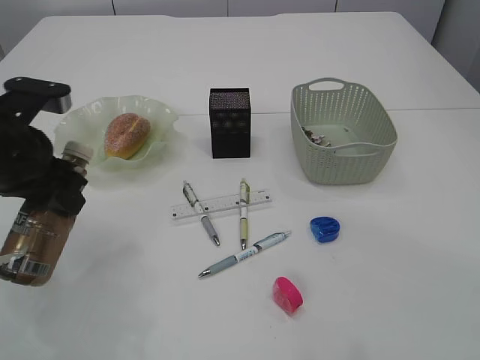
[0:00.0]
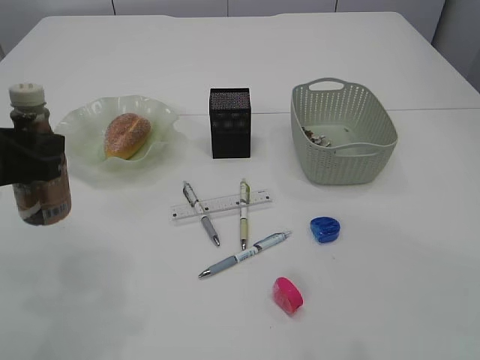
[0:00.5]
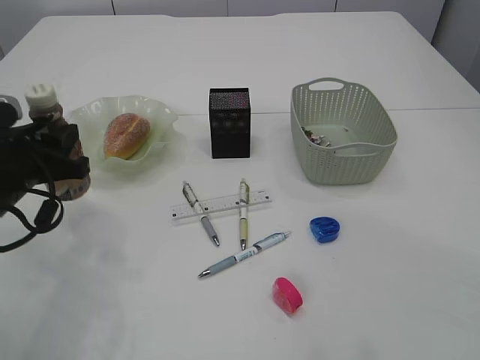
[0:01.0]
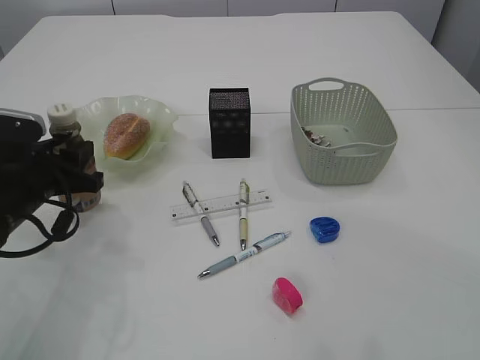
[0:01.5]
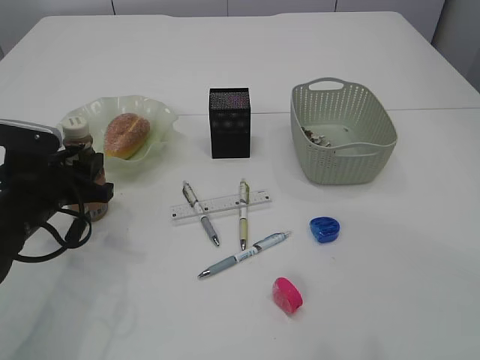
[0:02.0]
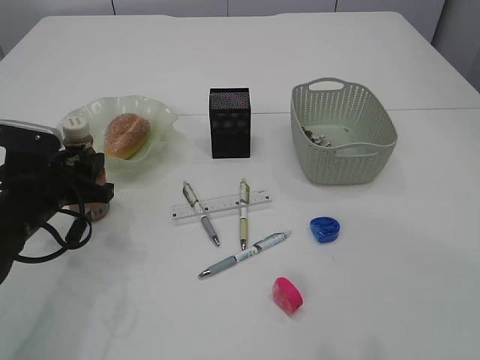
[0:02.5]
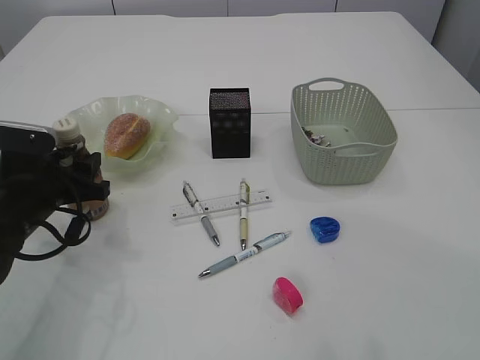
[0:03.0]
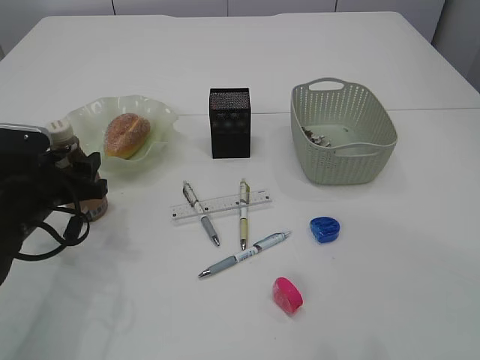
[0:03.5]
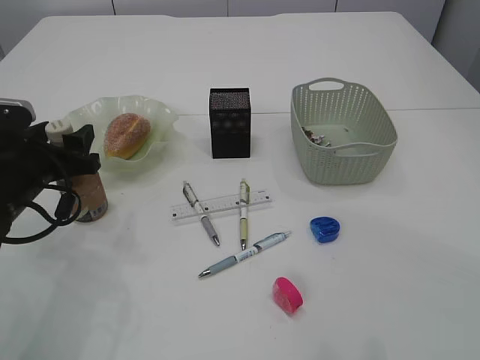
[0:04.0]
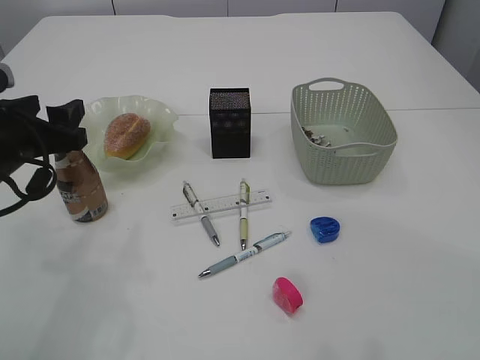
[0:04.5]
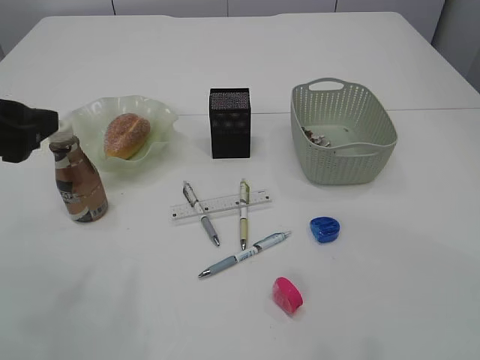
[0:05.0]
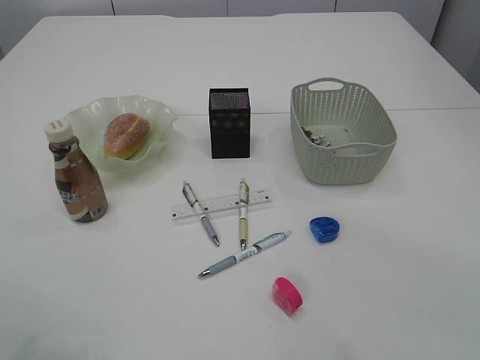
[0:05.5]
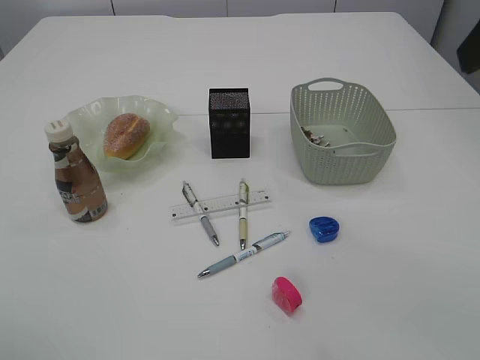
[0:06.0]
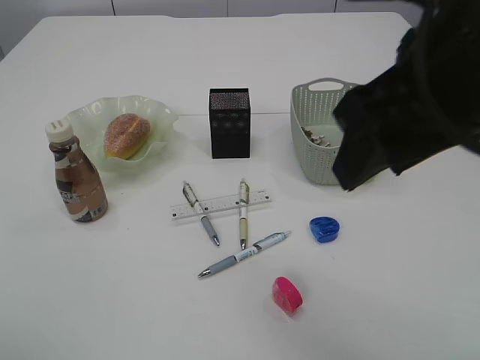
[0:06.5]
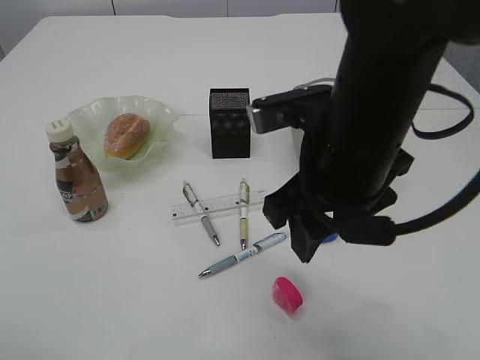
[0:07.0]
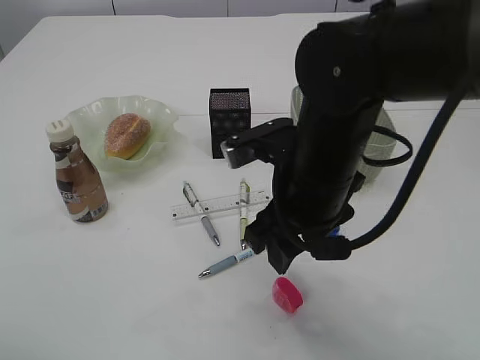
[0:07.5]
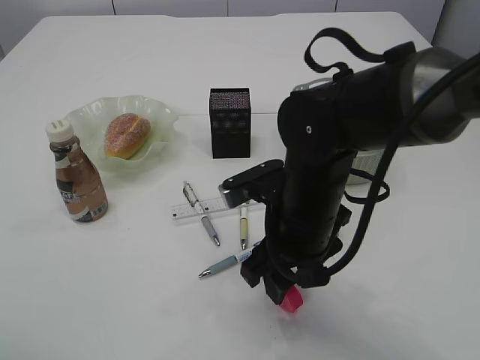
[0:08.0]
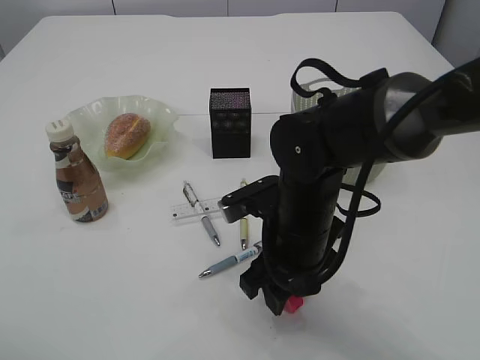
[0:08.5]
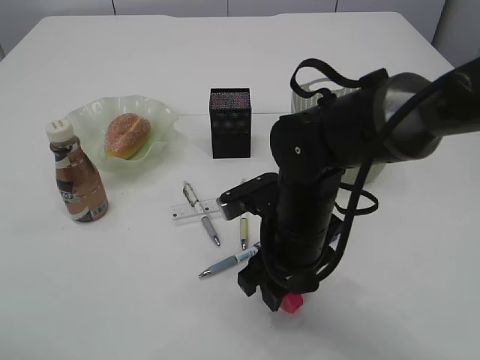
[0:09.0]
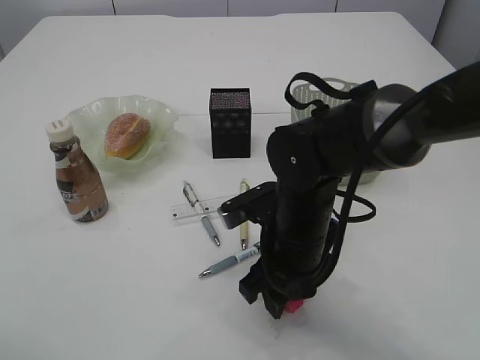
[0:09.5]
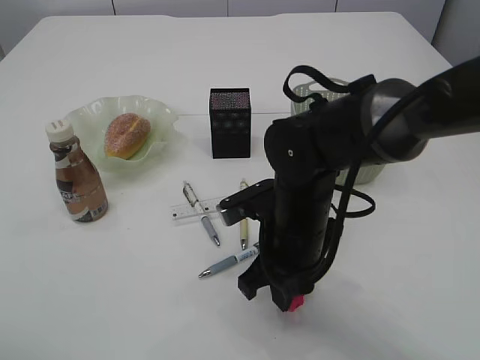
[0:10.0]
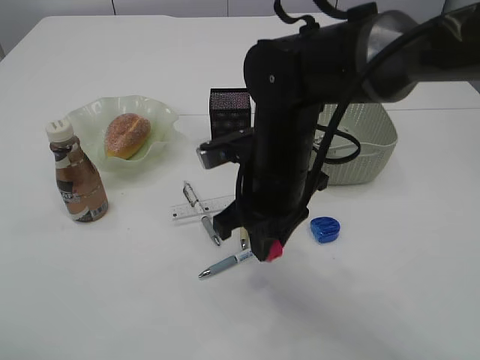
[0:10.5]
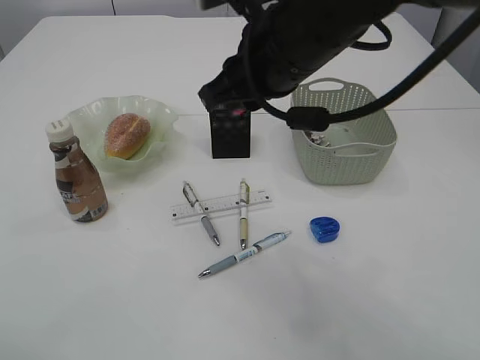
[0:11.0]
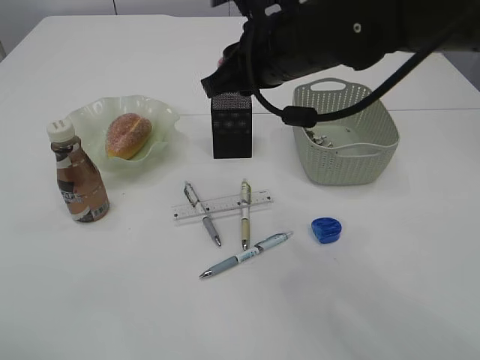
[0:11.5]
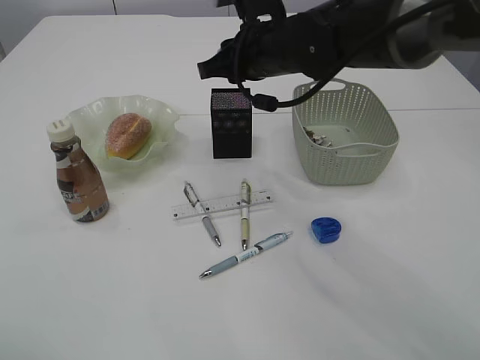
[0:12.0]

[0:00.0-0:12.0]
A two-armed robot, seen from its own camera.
Step, 0:00.0 to 0:05.0: Place the bottle.
Step, 0:05.5 to 0:10.5: Pick up the red pencil sharpener.
0:00.0 to 0:02.0: The left gripper is displaced downward by some 10 cm.
0:02.0 to 0:04.0: The left gripper opens.
0:04.0 to 0:06.0: The left gripper shifts approximately 25 cm upward and backward.
0:06.0 to 0:08.0: The right gripper moves downward and to the left, roughly 30 cm.
0:08.0 to 0:10.0: The right gripper closes its fingers.
0:10.0 to 0:12.0: The right gripper moves forward and upward, about 20 cm.

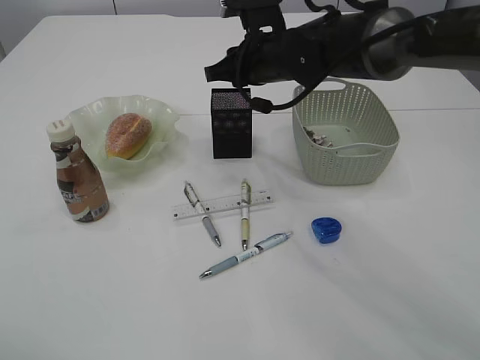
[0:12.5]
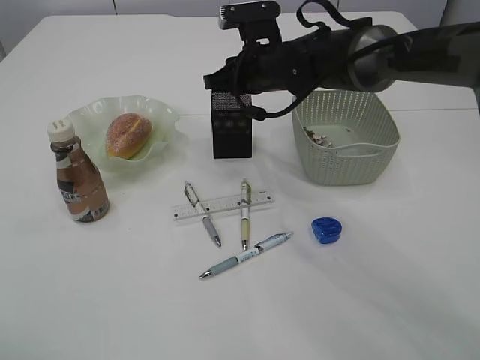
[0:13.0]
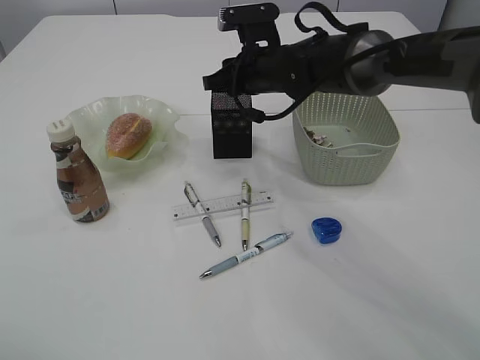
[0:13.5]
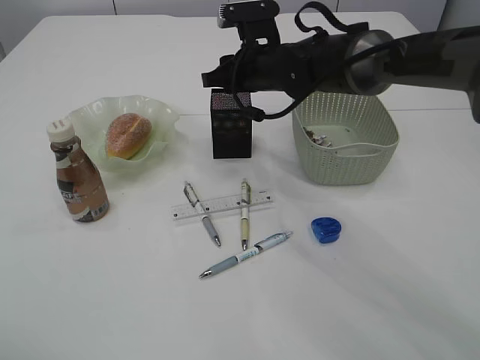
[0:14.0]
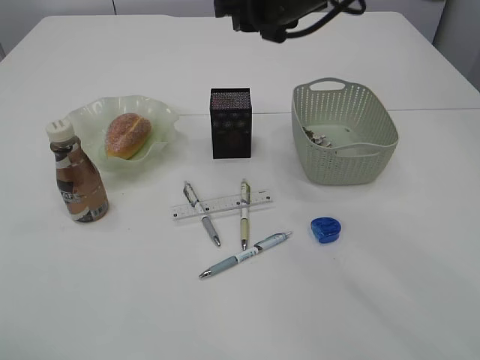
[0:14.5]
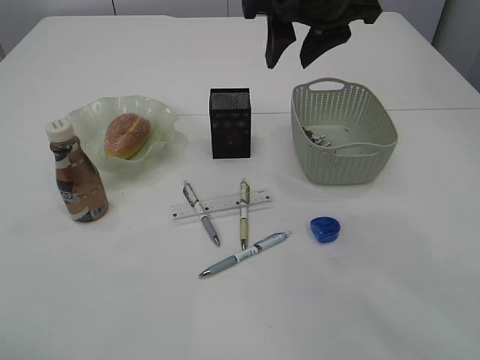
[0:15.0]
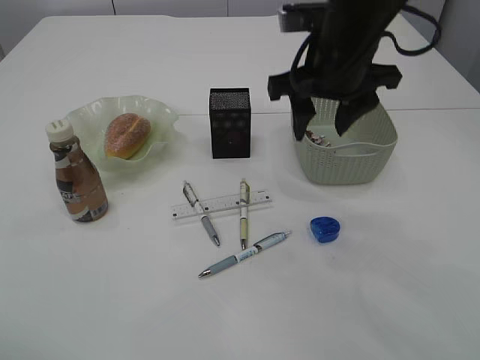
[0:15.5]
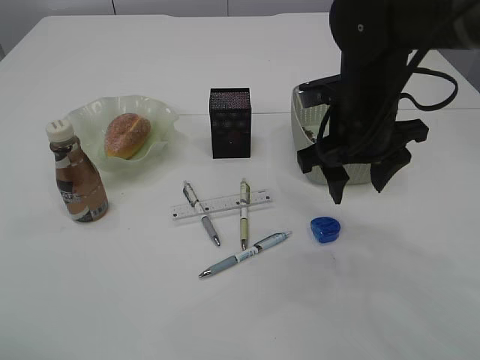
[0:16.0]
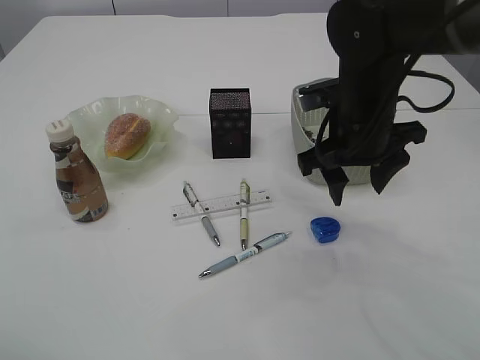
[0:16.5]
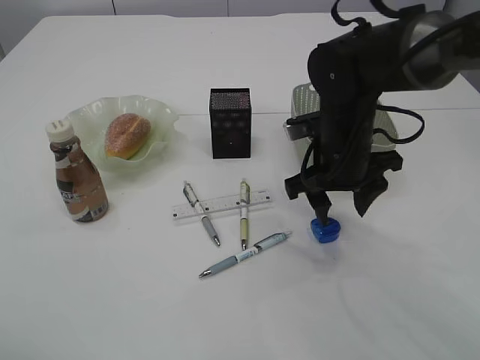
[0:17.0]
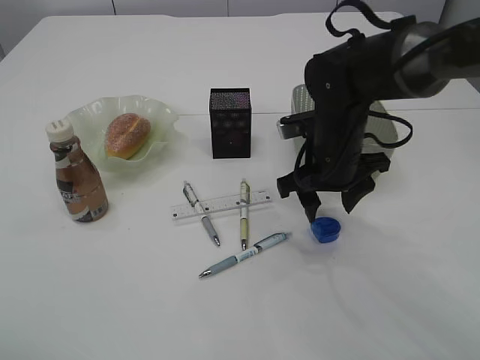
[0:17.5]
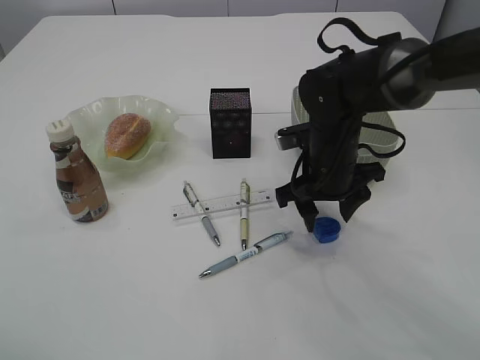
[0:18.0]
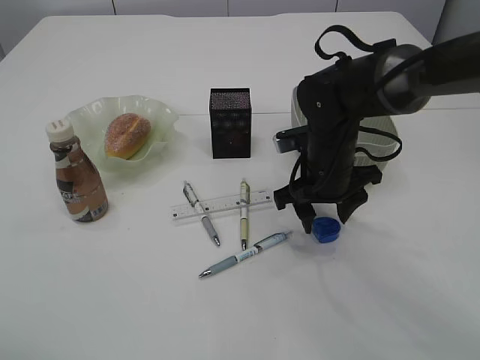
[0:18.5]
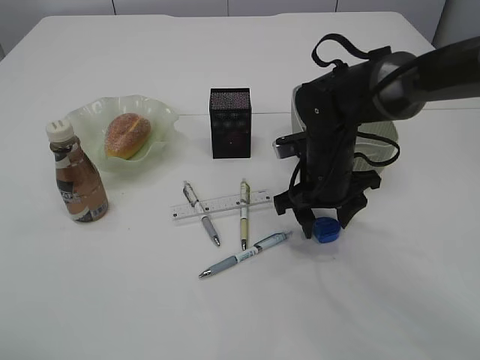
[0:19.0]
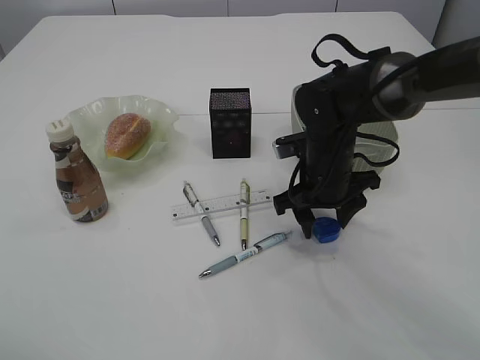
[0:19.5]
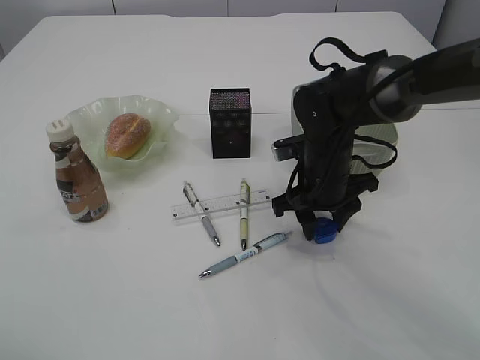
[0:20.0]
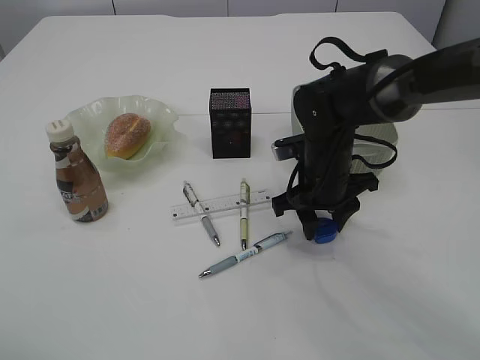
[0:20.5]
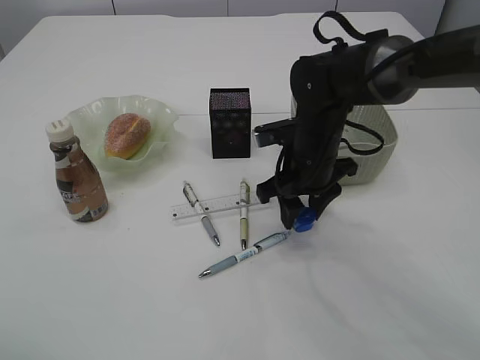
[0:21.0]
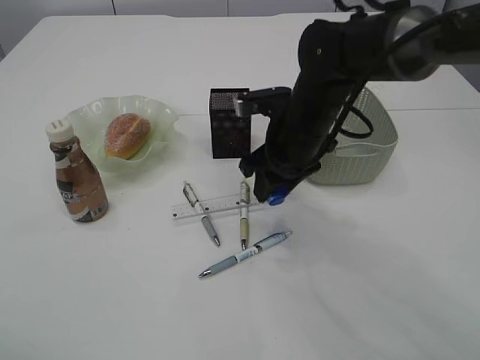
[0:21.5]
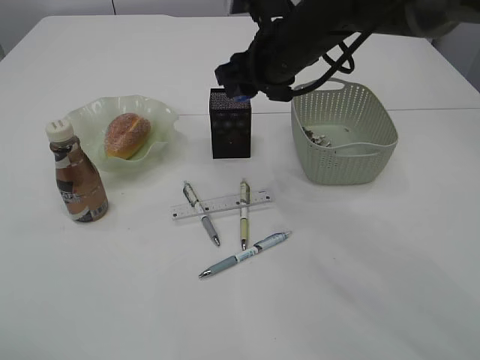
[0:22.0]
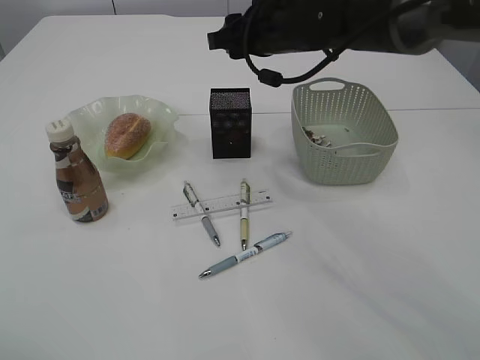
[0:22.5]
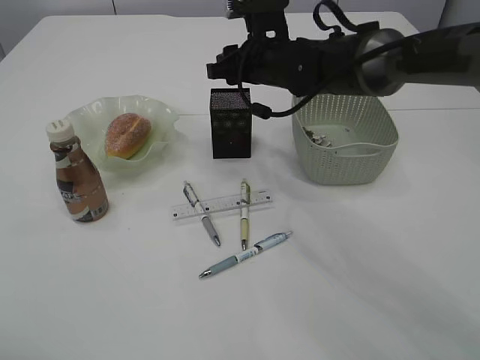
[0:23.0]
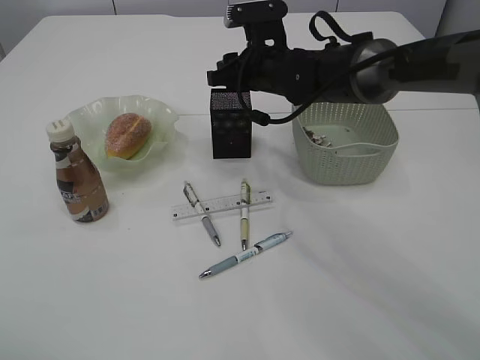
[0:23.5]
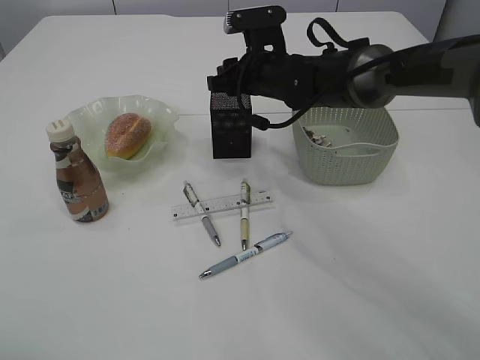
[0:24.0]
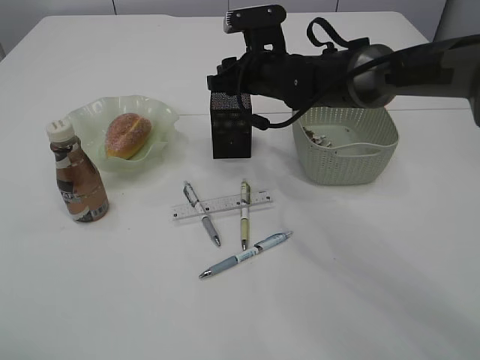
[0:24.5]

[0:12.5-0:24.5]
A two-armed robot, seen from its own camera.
Step, 0:14.5 to 0:21.5: Pick up the blue pencil sharpener.
0:12.5 to 0:14.5: The right gripper travels upward by some 10 cm.
0:14.5 to 0:16.5: The right gripper shifts approximately 15 cm backward, downward and to the right.
0:16.5 to 0:18.5: The right gripper is displaced downward by approximately 10 cm.
0:18.5 to 0:20.5: Neither gripper changes place.
0:20.5 to 0:22.5: The right gripper moves upward and forward, about 15 cm.
0:22.5 to 0:24.5: The right gripper goes about 5 cm downward.

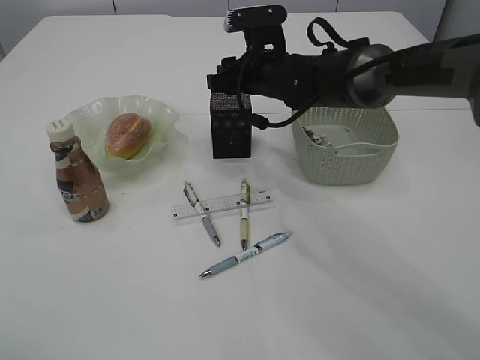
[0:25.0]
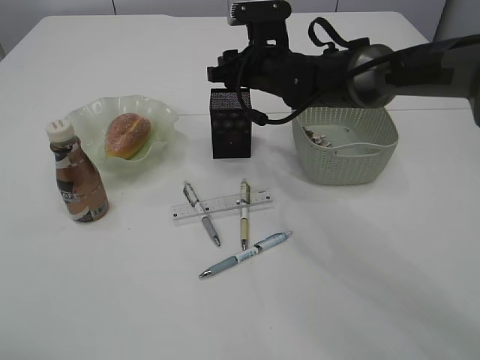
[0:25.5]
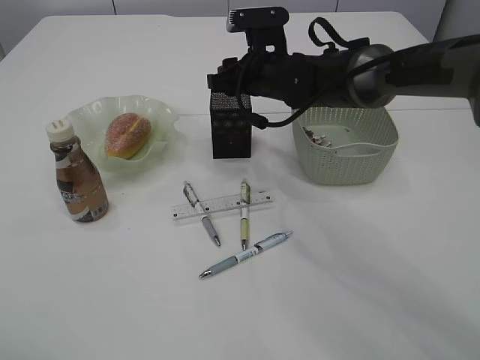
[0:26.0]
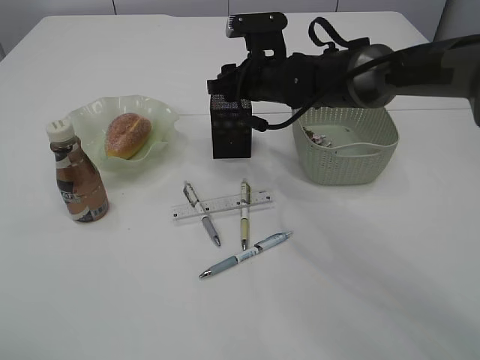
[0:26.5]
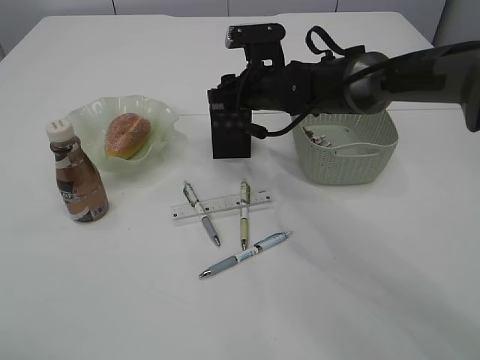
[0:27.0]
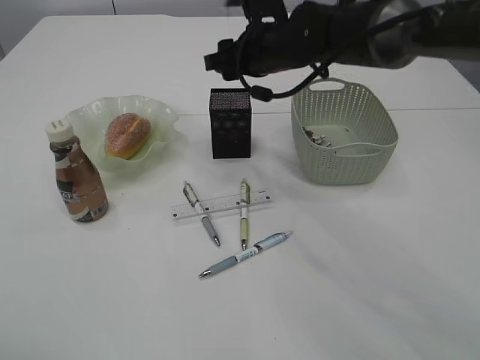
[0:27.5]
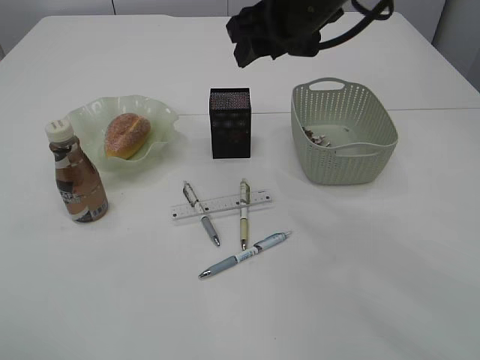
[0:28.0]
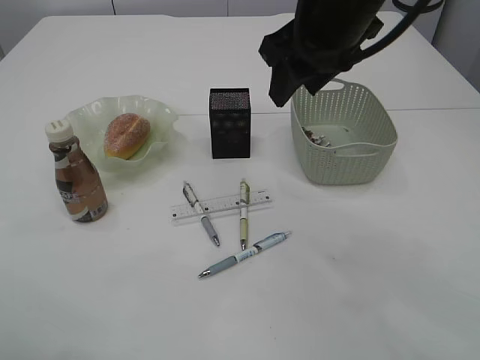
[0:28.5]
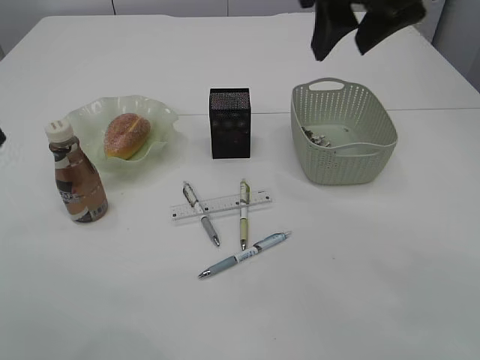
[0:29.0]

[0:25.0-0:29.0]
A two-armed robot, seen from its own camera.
Step, 0:25.0 to 0:27.5: Place the blue pencil sharpener into the pen holder.
0:25.0 to 0:27.0: The grippers stay close to where they were, moving slightly.
0:27.0 to 0:29.0: The right gripper travels upward and backward by roughly 25 cm. Meanwhile the left gripper is displaced forward by about 5 cm.
